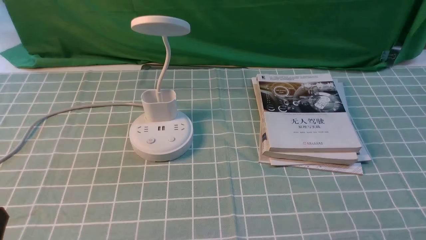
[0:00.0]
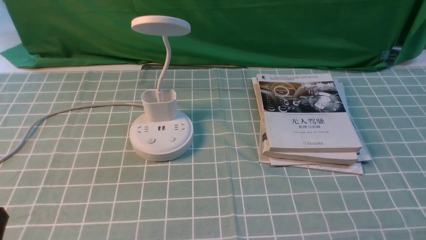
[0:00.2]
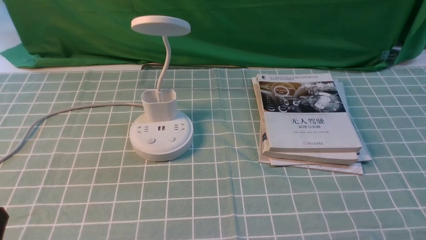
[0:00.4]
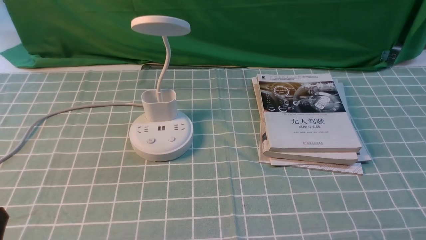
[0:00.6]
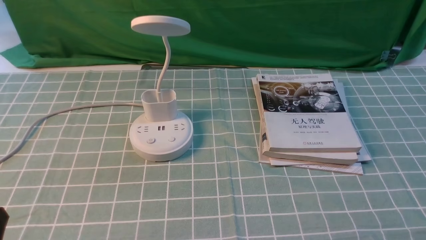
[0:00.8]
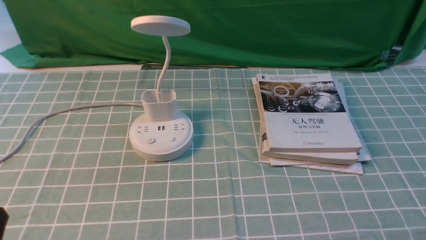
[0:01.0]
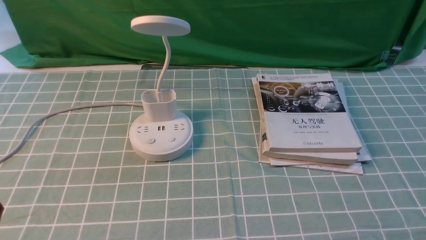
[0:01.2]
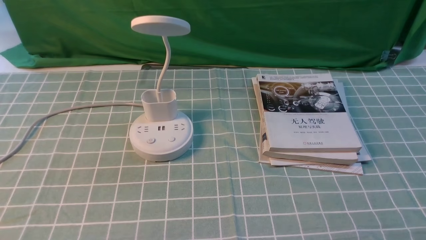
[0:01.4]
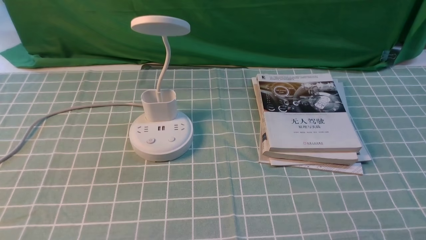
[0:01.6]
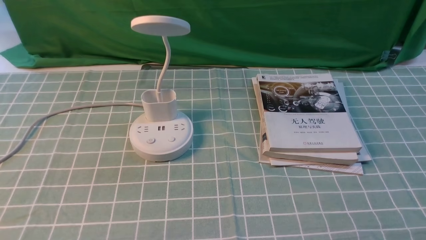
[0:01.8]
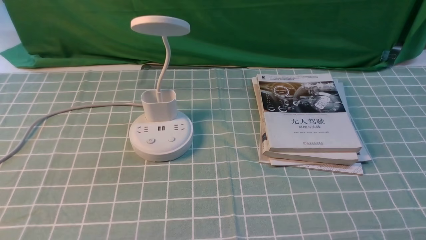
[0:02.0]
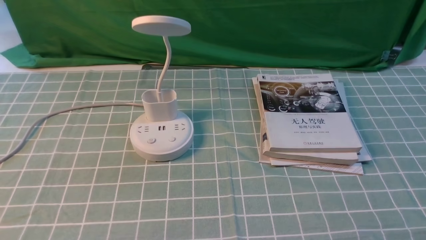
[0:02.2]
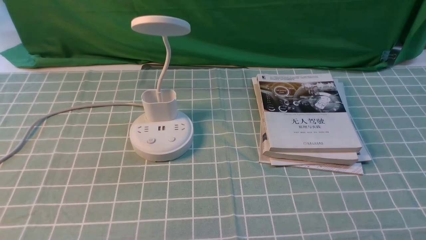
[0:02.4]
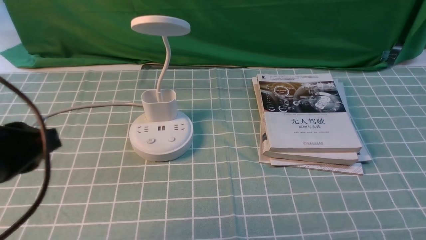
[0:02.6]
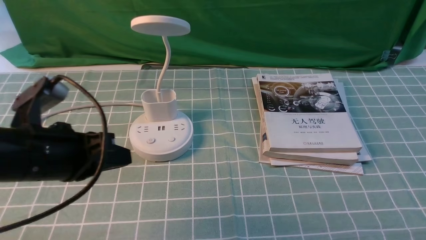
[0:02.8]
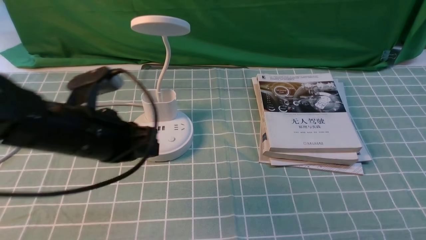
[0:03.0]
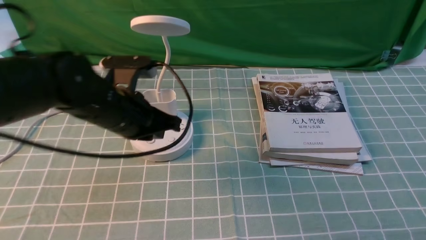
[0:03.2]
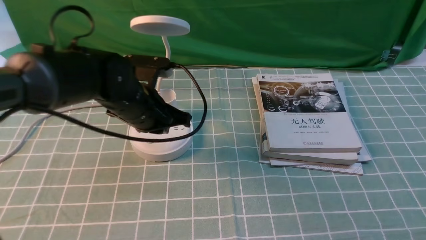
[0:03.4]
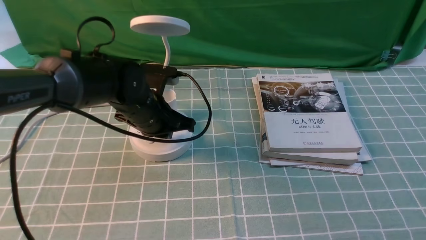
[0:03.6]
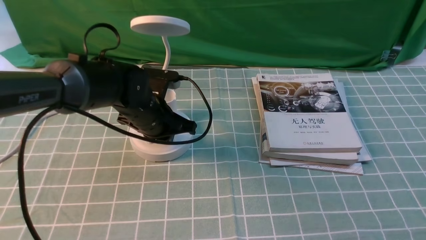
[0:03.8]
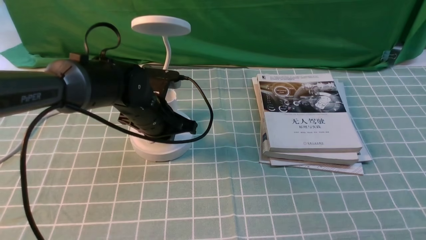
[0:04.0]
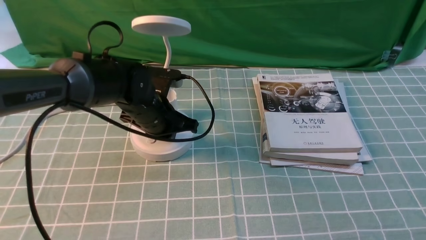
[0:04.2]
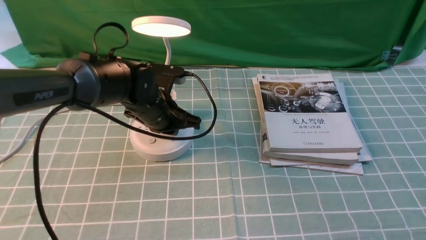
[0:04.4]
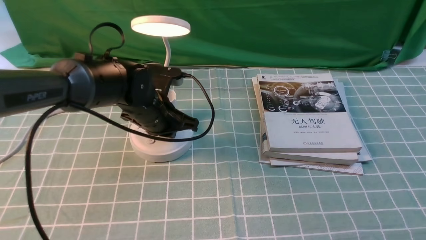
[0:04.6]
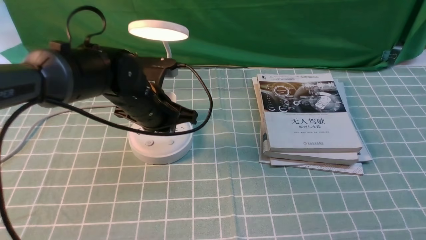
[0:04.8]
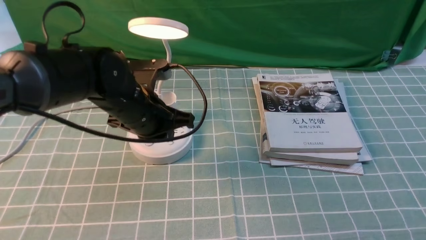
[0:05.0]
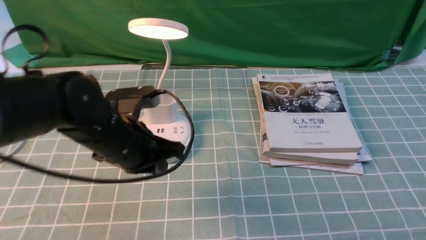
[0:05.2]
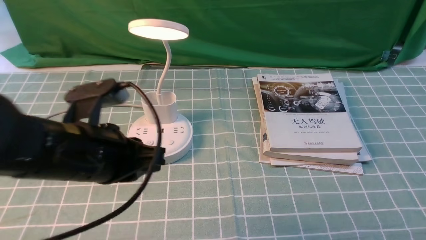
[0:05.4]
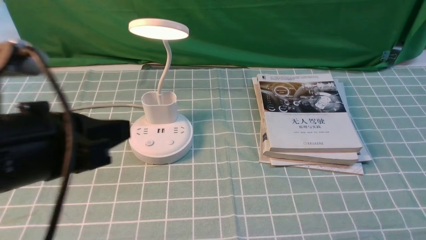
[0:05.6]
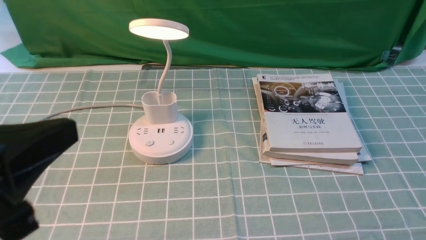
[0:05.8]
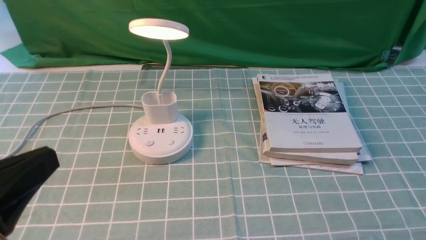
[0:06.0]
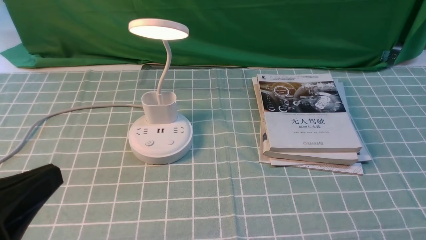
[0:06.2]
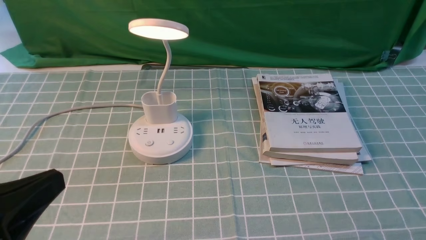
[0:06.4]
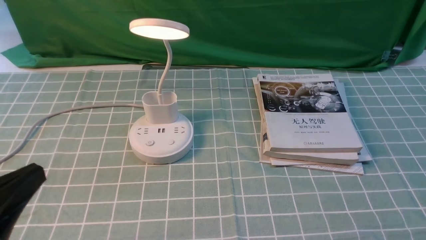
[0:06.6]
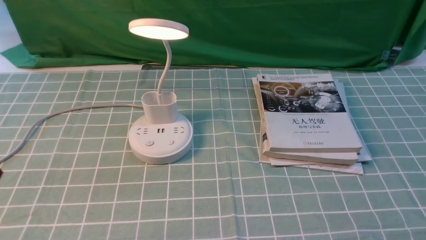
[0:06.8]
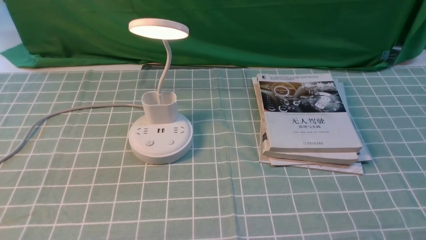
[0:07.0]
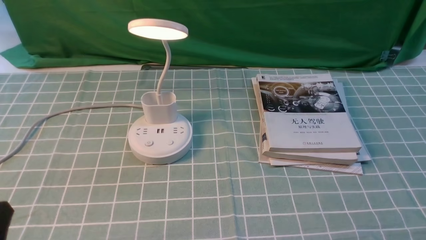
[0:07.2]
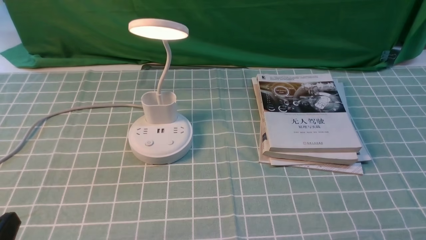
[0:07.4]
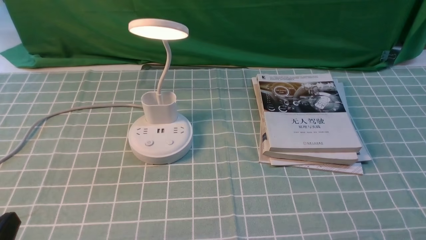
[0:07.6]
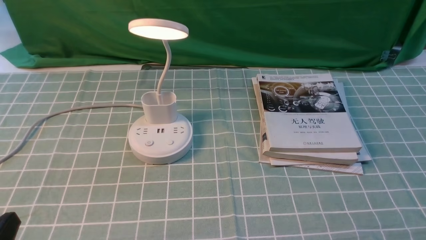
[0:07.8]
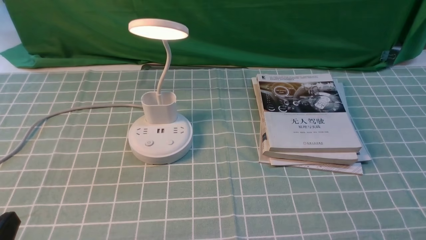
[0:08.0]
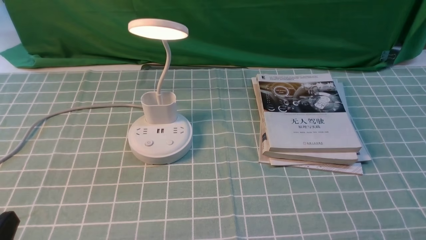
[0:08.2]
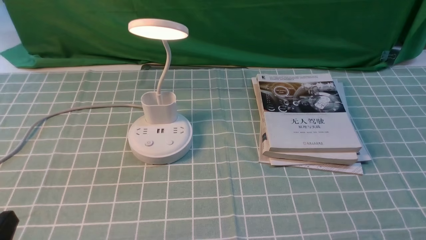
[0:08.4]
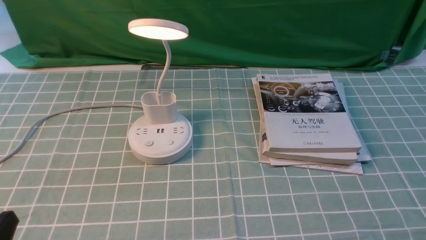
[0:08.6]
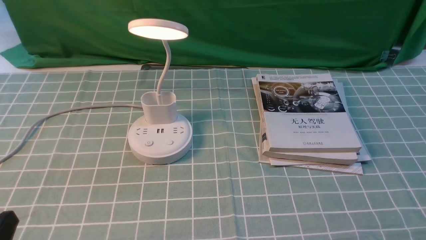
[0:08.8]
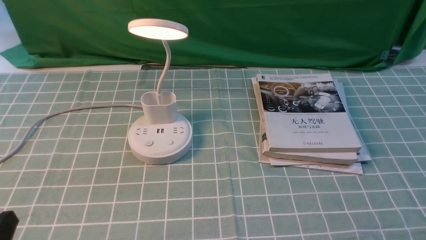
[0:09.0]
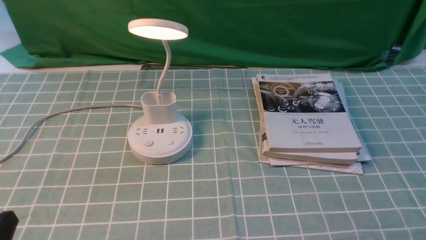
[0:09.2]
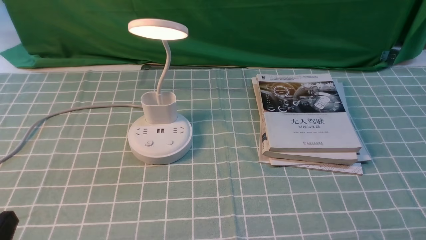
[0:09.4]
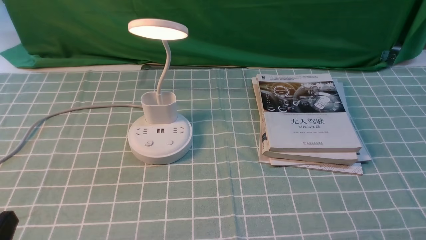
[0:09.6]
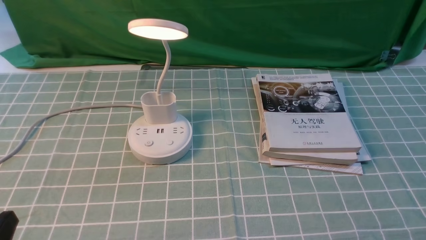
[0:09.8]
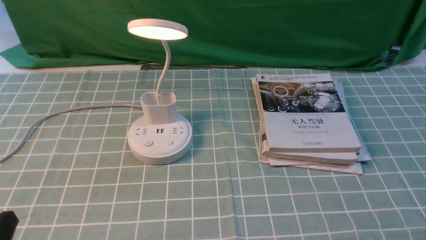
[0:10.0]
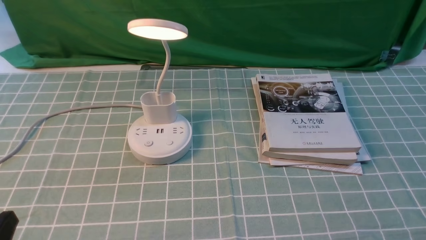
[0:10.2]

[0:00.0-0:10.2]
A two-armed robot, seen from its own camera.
Step, 0:00.0 to 0:04.6: use the left arm to press the button switch on the lamp holder.
0:01.4 to 0:03.0: The left gripper goes some 25 cm forward and to the right, and closes up.
0:03.0 to 0:04.4: The left gripper goes some 15 cm forward, downward and to the right.
0:04.4 to 0:05.8: The left gripper travels backward and upward by approximately 35 cm.
0:05.8 to 0:07.2: The left gripper travels downward by about 15 cm.
0:08.8 to 0:10.2: The two grippers keep their place.

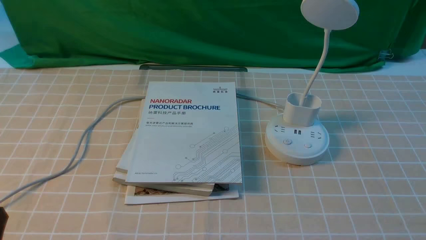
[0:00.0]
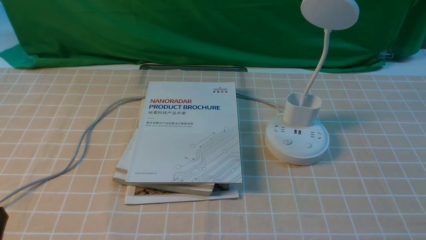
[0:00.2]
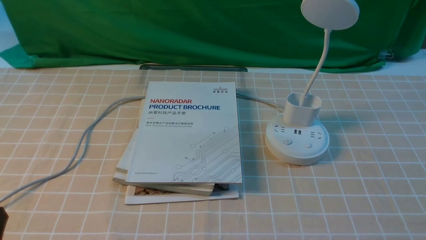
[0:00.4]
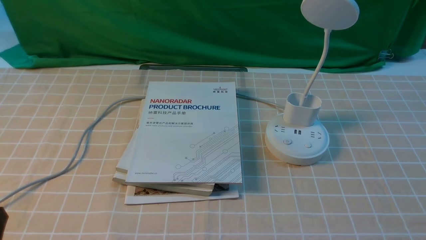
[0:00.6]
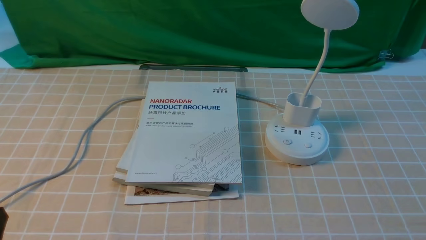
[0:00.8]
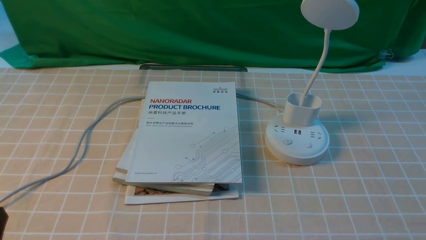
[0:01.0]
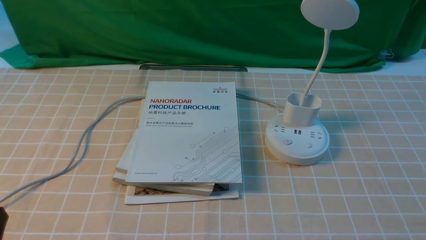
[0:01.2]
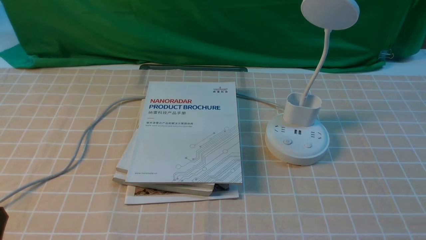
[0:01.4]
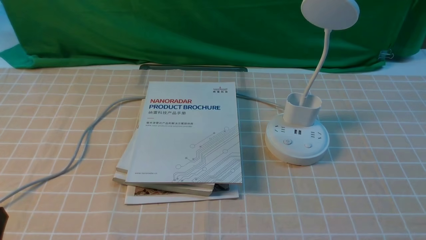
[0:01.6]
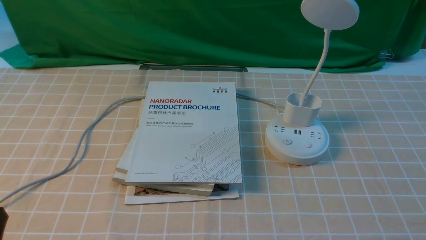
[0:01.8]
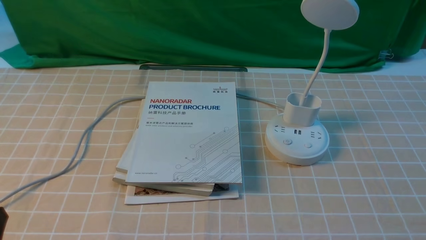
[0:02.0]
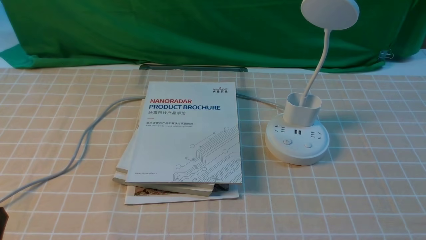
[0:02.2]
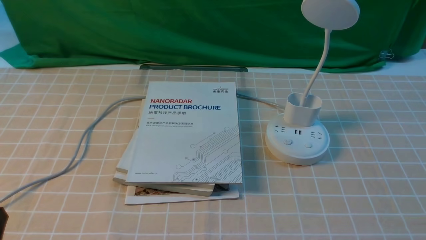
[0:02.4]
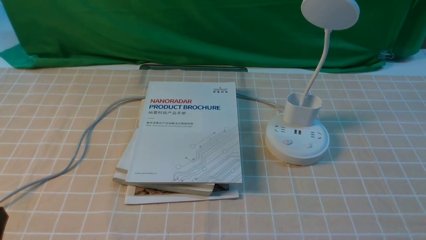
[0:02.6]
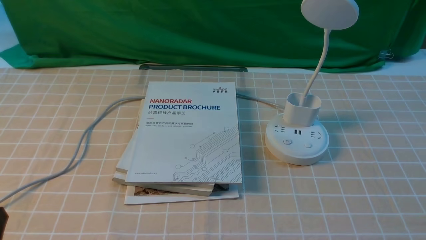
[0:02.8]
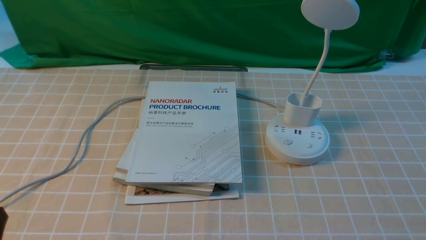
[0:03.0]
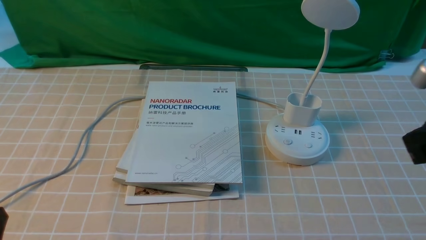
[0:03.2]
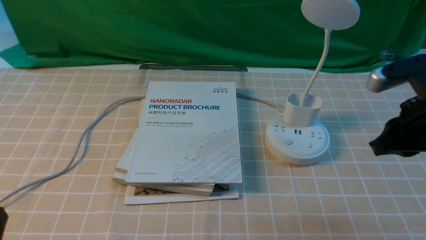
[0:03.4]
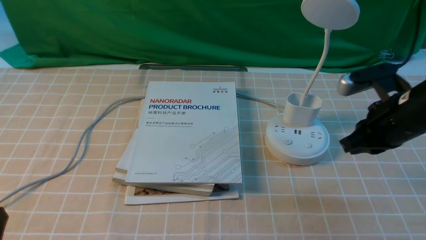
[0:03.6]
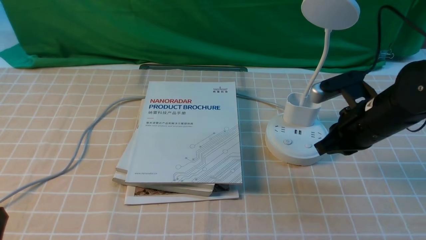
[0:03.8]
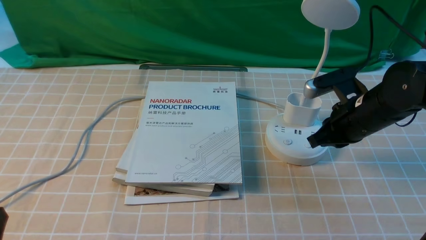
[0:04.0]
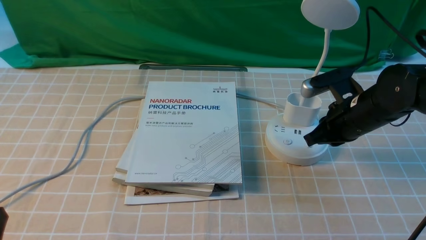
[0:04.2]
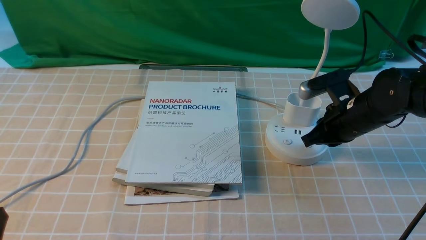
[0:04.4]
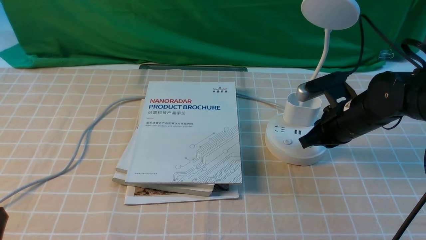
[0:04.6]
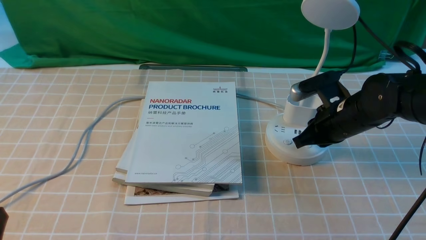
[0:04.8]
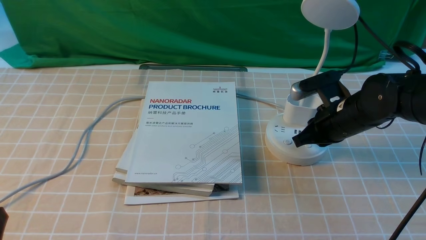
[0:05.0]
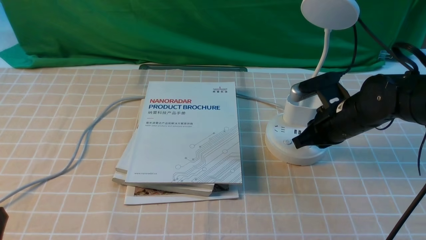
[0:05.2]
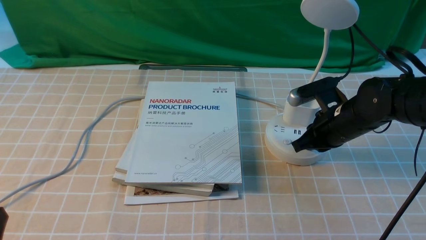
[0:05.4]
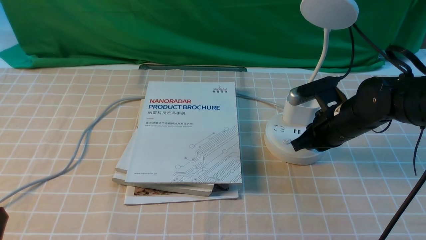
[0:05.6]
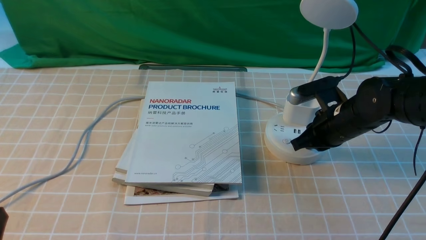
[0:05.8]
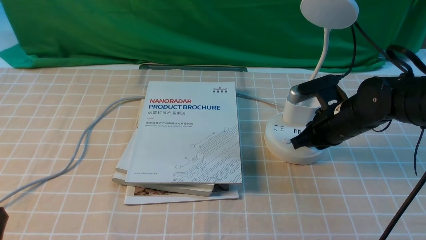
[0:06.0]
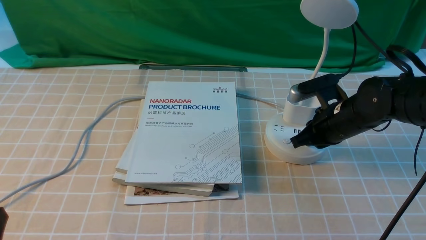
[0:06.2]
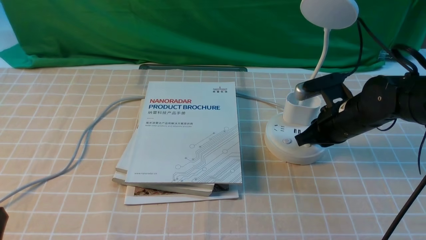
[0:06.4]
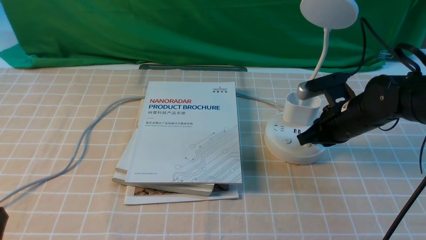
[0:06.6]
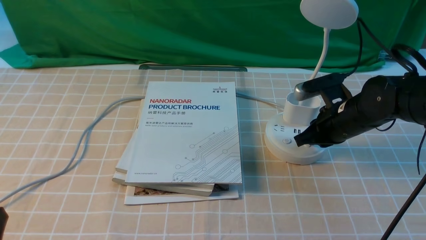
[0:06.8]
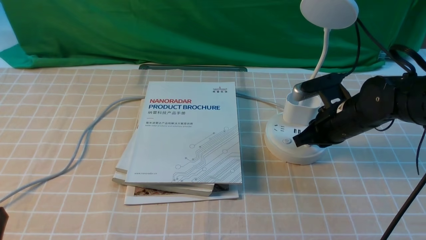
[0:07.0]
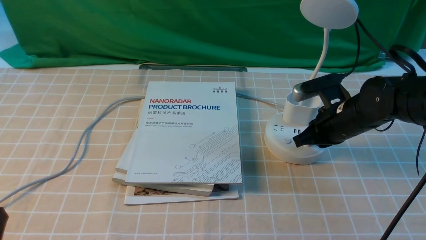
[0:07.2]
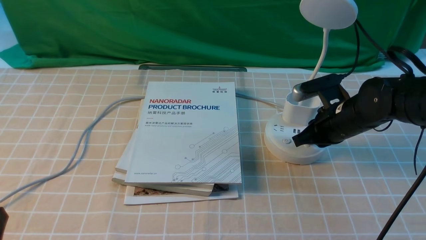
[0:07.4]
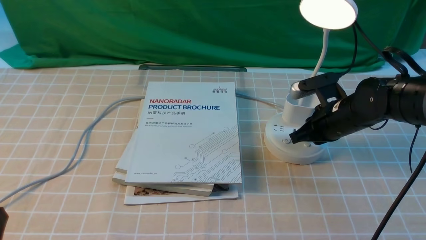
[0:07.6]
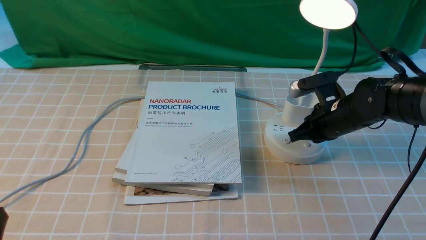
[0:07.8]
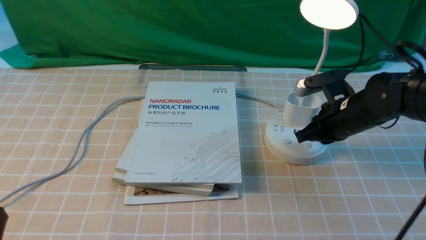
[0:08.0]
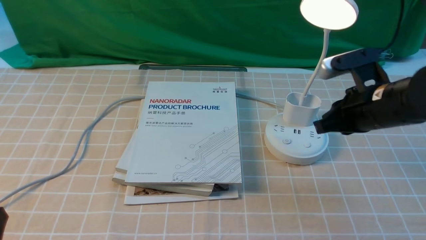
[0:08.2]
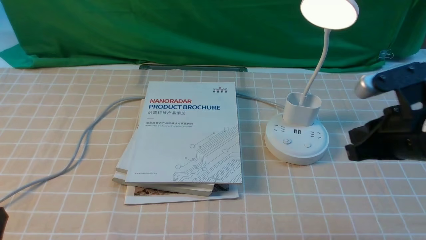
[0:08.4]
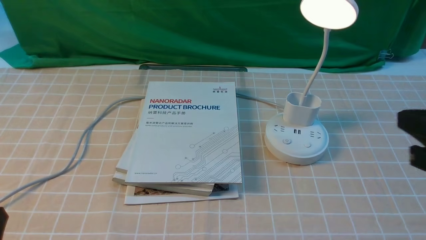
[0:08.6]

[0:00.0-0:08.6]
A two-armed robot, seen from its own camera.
Step, 0:00.0 to 0:08.2: use the right arm to press the button switch on the lamp holder.
0:00.0 to 0:01.4: Both grippers stay put.
0:02.8 to 0:04.4: The right gripper is displaced forward and downward by about 30 cm.
0:04.4 to 0:05.8: The grippers move only a little.
0:05.8 to 0:07.2: Both grippers stay put.
0:07.2 to 0:08.6: The right gripper shifts roughly 25 cm backward and upward.
